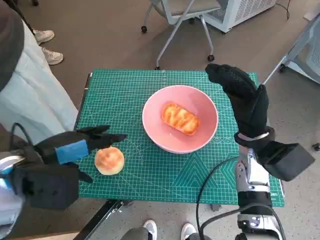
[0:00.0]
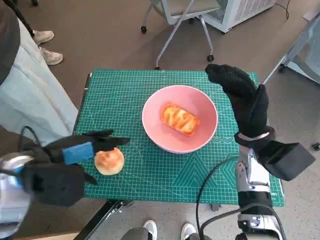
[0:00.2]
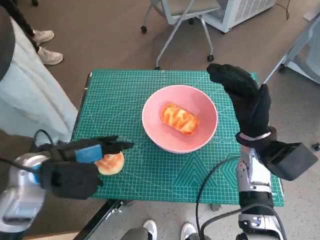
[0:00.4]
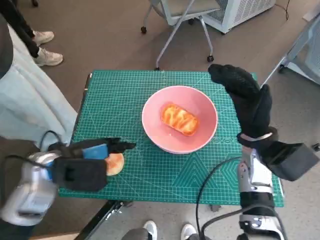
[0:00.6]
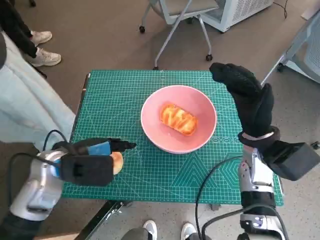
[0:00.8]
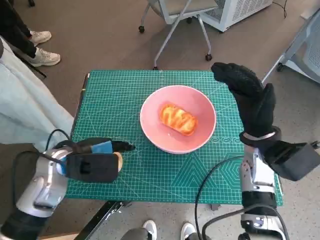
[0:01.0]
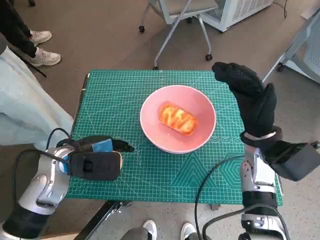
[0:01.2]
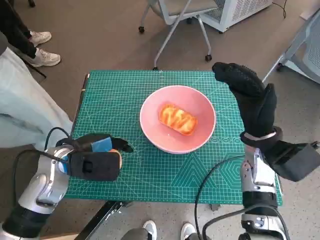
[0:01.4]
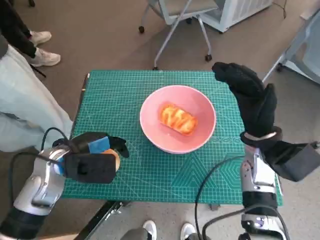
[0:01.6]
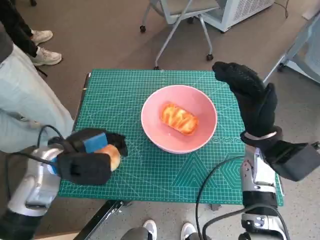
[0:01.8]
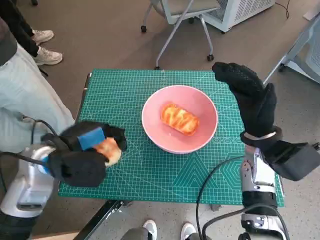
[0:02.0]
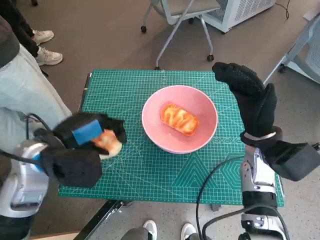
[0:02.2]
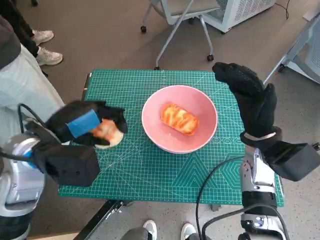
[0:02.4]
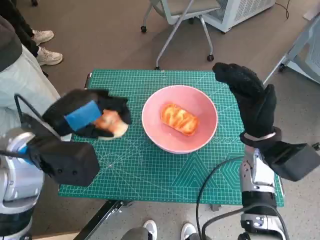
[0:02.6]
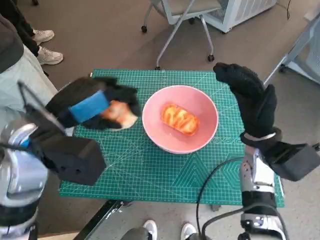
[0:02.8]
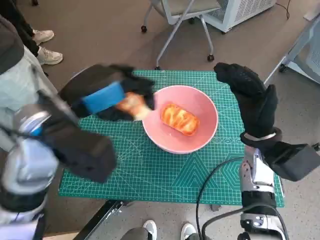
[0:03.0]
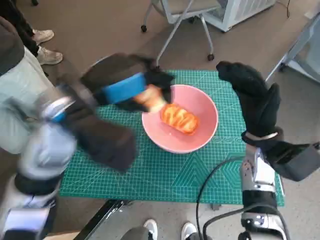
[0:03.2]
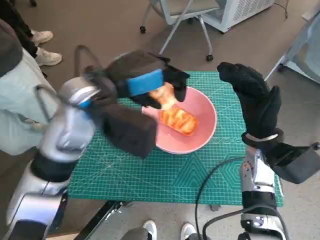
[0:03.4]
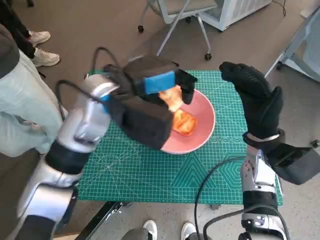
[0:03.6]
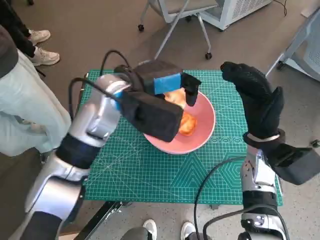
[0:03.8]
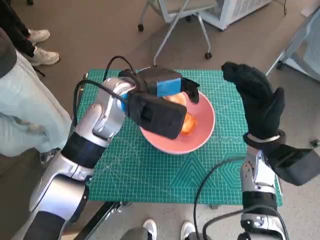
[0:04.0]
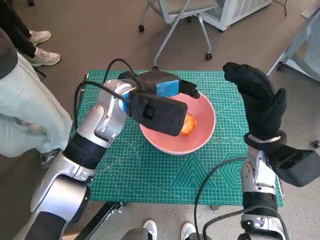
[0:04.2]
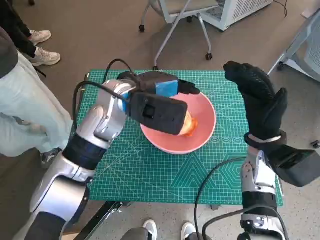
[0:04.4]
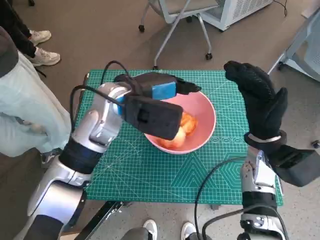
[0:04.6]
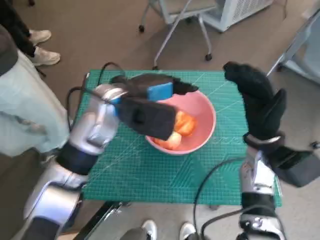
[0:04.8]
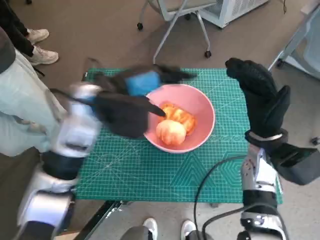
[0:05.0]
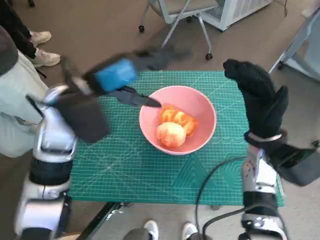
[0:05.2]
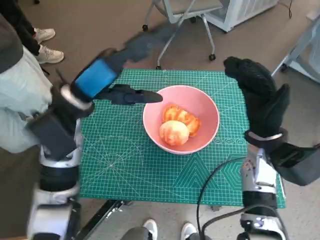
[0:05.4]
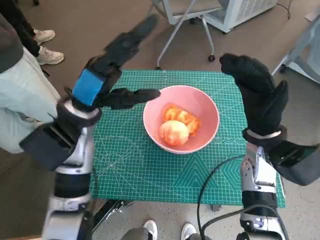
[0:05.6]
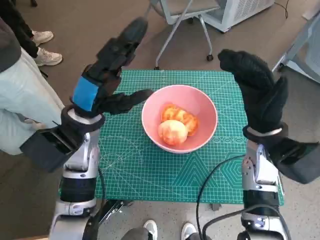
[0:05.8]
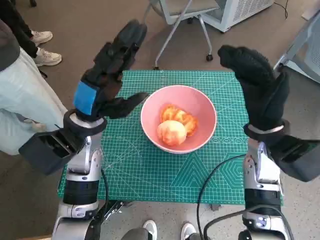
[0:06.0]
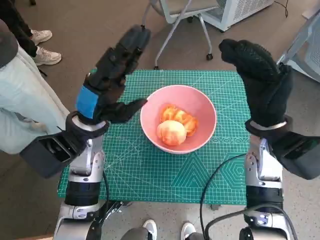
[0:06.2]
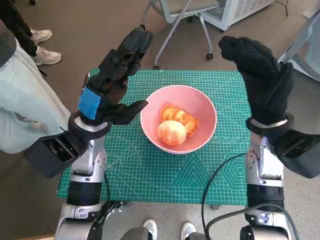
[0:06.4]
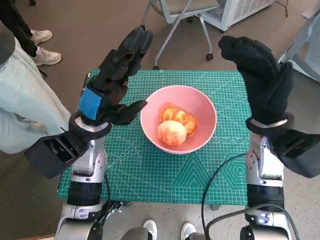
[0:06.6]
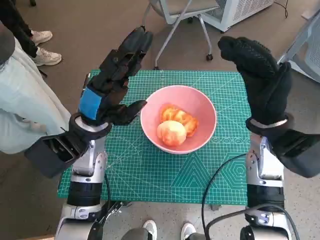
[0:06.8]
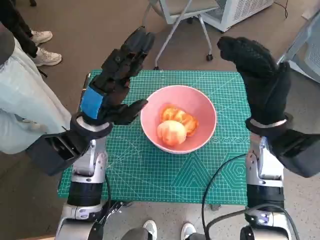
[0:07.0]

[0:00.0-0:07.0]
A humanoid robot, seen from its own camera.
Task of the whole recording: Push the bowl into the center of the table and put the bread into the bowl.
Step, 0:01.6 to 0:04.6: Place the round bread in pink bowl with left hand.
0:00.0 to 0:01.4: The left hand moves downward, roughly 10 cm.
0:01.4 to 0:02.8: The left hand goes roughly 10 cm upward.
0:02.8 to 0:04.2: The left hand moves to the right and forward, roughly 15 cm.
0:04.2 to 0:05.6: The left hand travels to the left by approximately 10 cm.

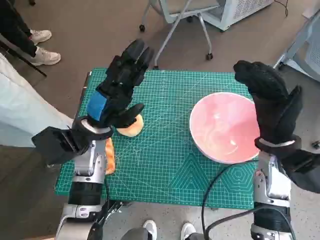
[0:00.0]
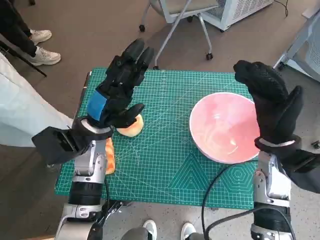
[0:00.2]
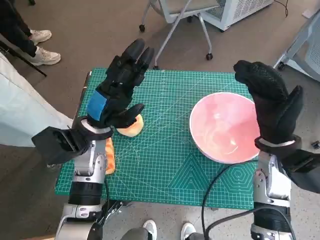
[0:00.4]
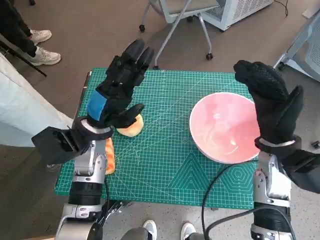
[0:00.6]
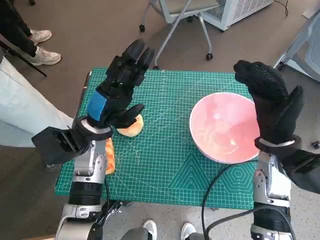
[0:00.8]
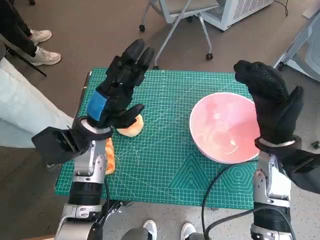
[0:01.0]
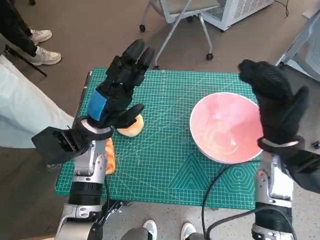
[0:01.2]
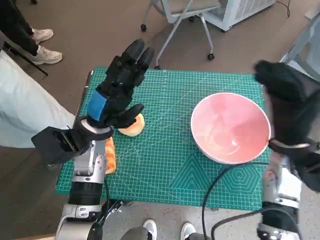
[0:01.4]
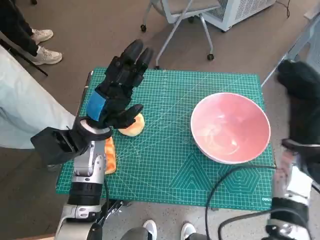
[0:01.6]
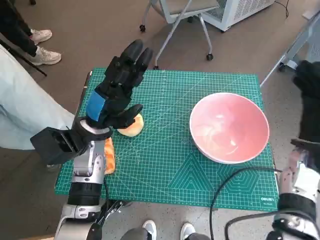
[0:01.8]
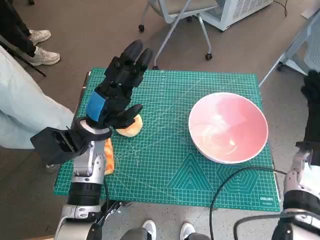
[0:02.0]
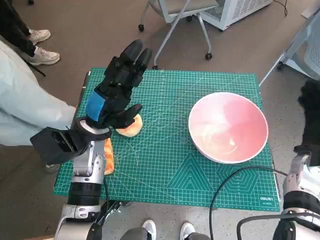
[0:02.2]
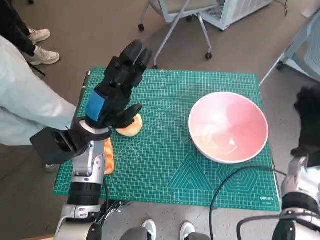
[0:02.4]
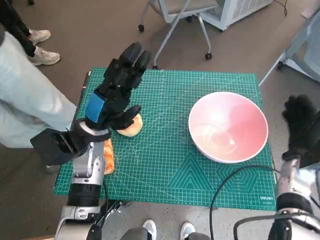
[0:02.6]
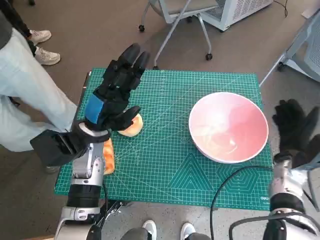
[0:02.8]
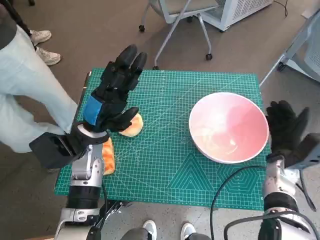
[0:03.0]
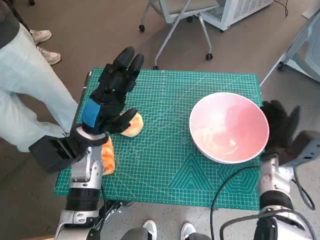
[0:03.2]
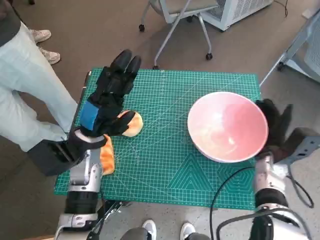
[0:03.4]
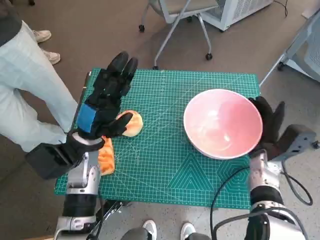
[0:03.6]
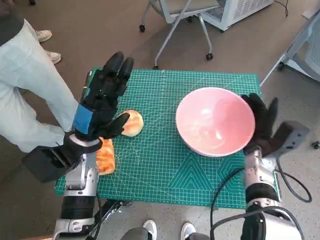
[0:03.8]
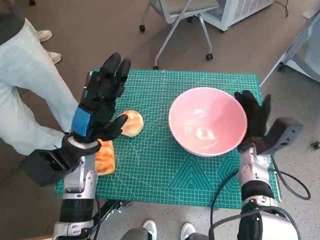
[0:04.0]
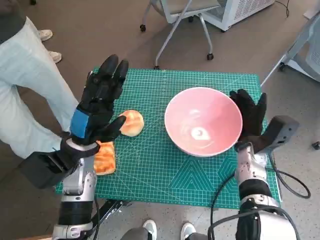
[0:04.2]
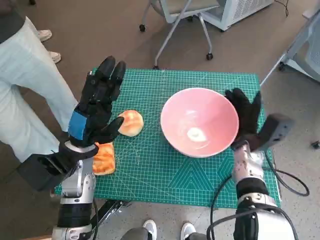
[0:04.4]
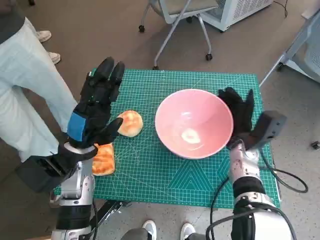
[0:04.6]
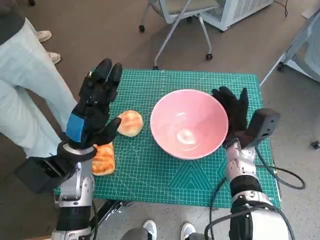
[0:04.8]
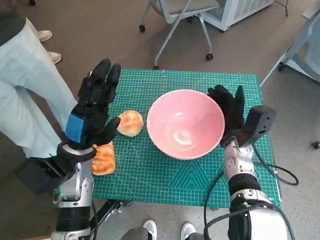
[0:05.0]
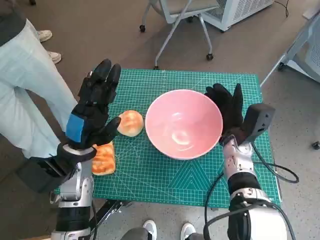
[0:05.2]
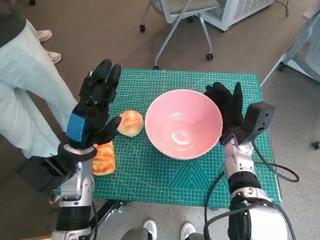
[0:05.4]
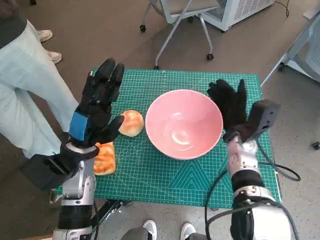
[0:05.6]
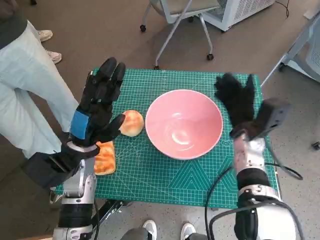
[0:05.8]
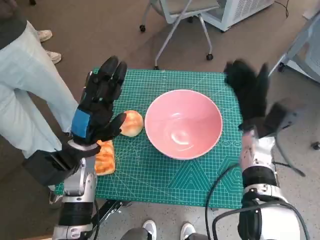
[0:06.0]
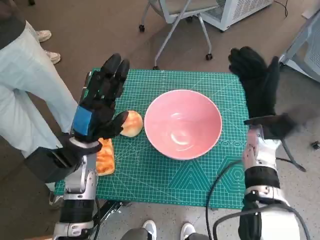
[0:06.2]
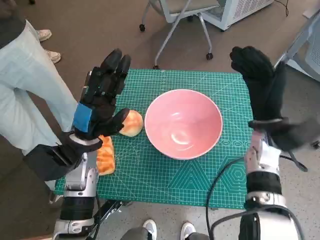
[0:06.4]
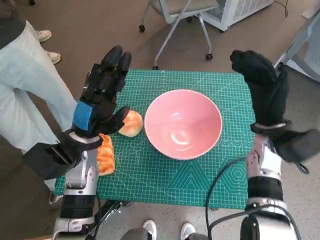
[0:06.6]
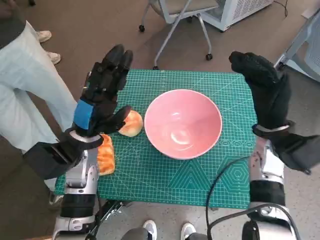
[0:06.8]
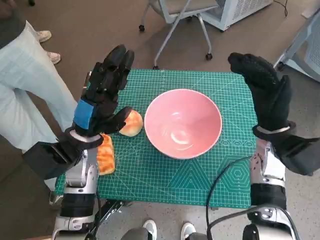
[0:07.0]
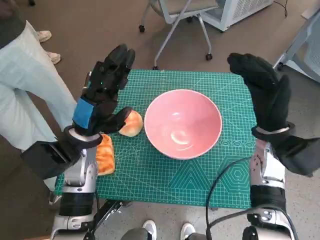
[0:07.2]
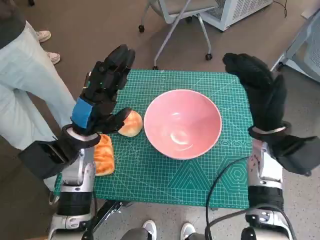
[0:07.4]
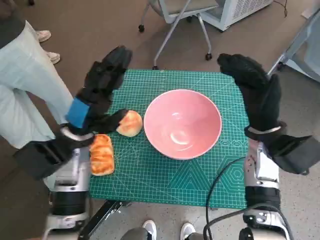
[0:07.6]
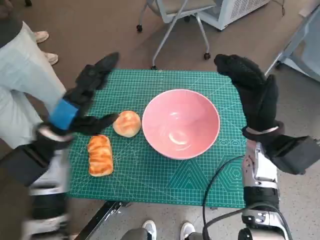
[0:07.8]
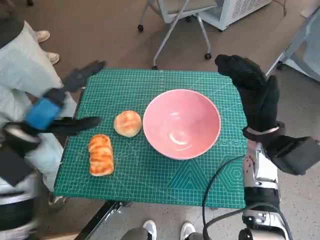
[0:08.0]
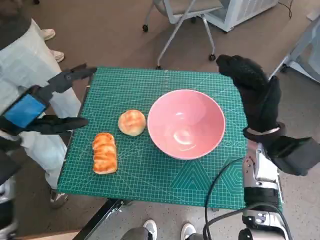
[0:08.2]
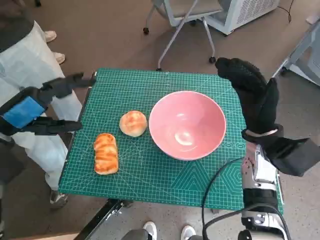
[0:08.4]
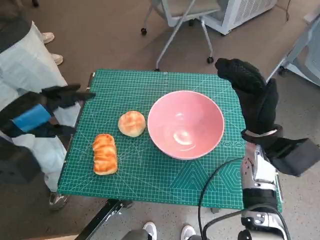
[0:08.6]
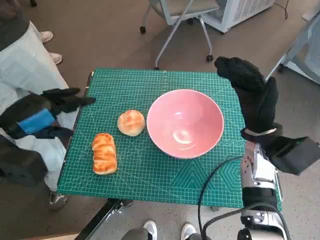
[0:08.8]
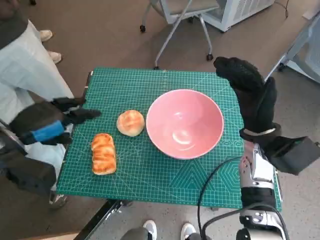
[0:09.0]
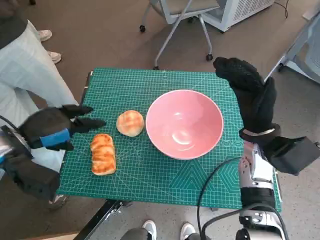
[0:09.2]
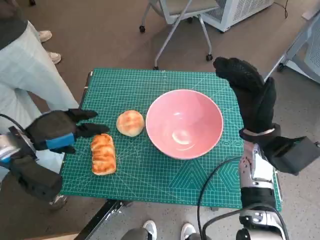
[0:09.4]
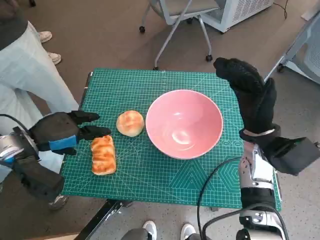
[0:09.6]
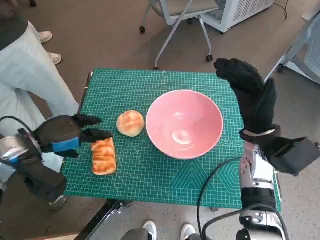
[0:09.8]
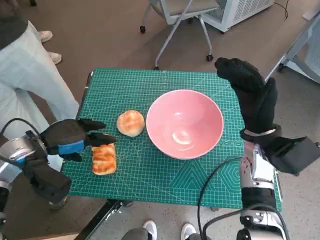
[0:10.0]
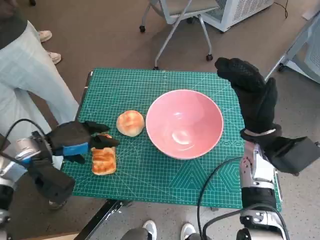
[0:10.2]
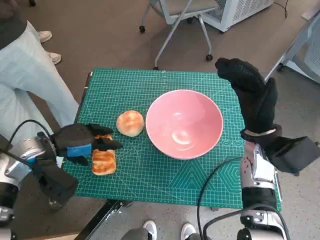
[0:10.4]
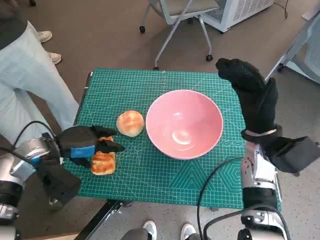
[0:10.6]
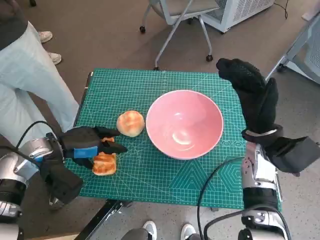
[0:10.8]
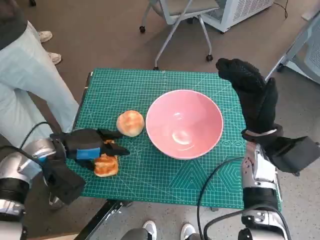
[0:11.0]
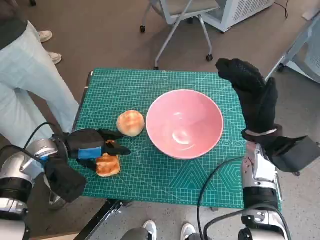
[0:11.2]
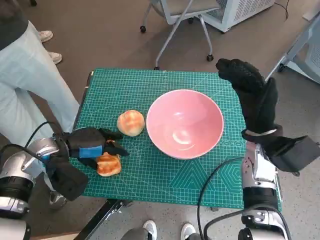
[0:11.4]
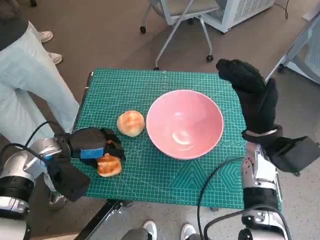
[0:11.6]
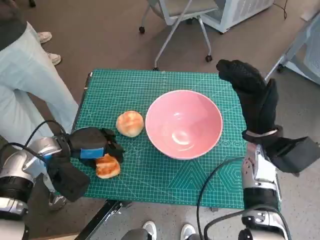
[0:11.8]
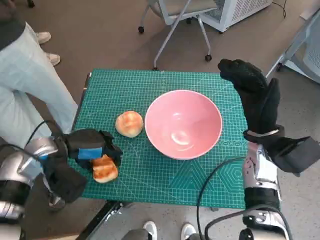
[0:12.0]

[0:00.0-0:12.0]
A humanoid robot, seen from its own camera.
Task of the whole recording: Push the bowl into the center of the table and put the bread into the bowl.
Step, 0:00.0 to 0:05.8: Move the pink bowl to the center of table with right hand.
Step, 0:06.0 to 0:11.8: Grasp the long bread with left hand.
0:01.6 to 0:03.0: The right hand shifts approximately 10 cm downward.
0:03.0 to 0:04.4: The right hand heads to the left, covering roughly 10 cm.
0:04.4 to 0:06.0: The right hand ends up some 5 cm from where it was.
0:06.0 to 0:07.6: The right hand changes place by about 5 cm.
0:07.6 to 0:09.0: The left hand heads to the left, covering some 10 cm.
0:09.0 to 0:10.4: The left hand shifts about 5 cm downward.
0:10.4 to 0:12.0: There are only small adjustments of the hands.

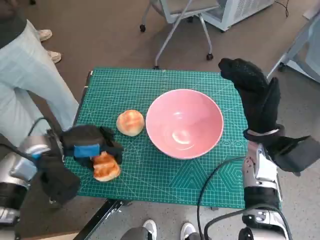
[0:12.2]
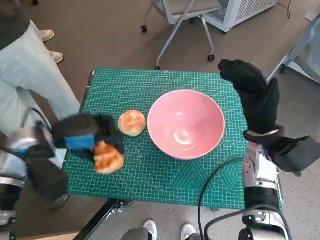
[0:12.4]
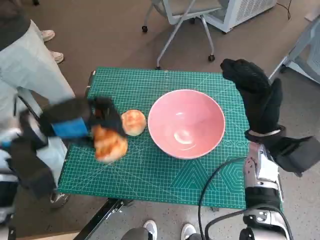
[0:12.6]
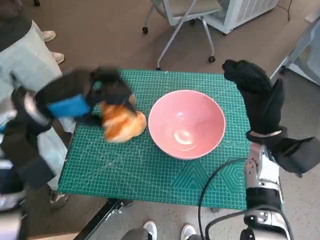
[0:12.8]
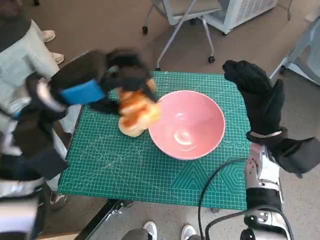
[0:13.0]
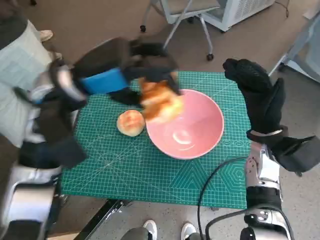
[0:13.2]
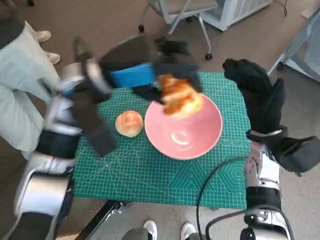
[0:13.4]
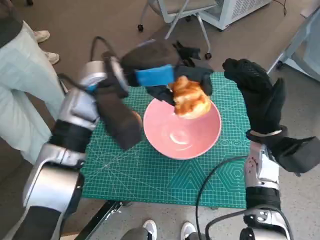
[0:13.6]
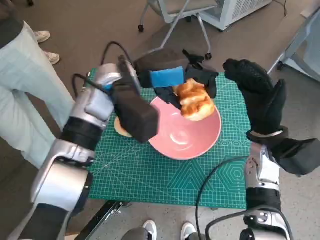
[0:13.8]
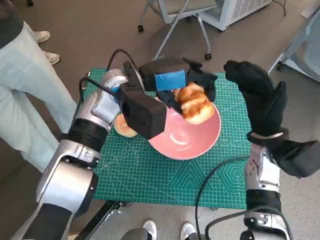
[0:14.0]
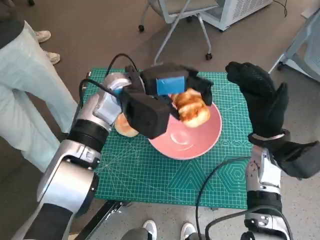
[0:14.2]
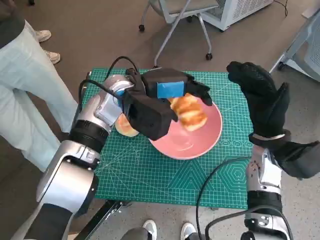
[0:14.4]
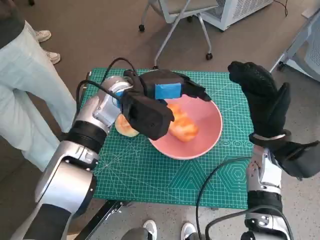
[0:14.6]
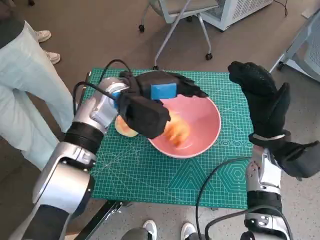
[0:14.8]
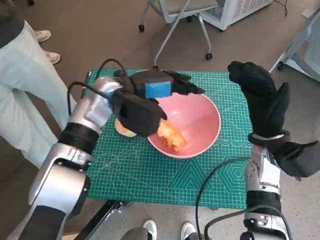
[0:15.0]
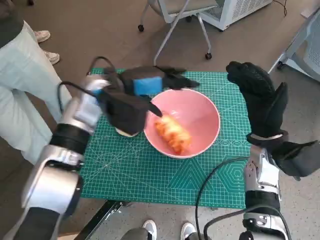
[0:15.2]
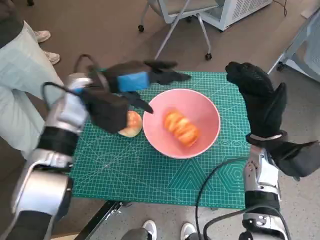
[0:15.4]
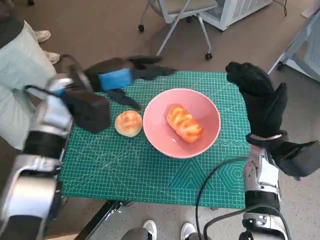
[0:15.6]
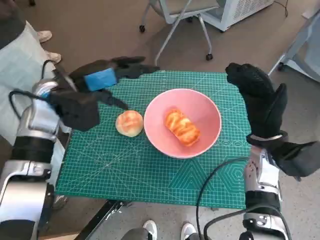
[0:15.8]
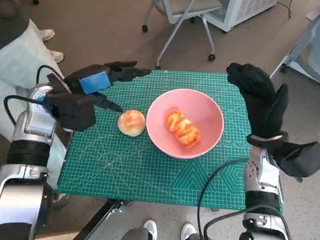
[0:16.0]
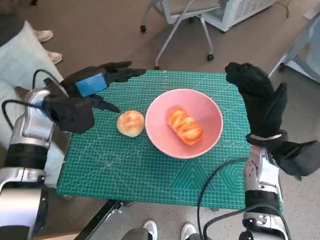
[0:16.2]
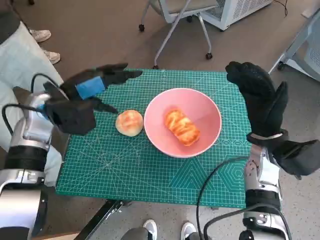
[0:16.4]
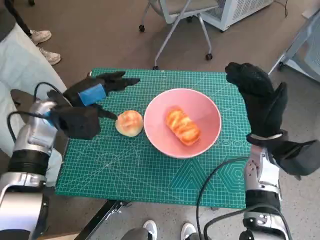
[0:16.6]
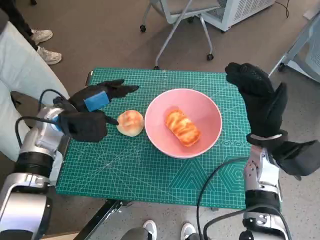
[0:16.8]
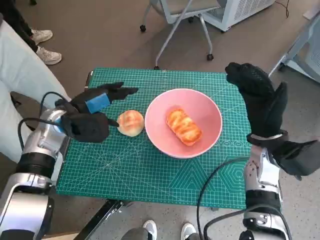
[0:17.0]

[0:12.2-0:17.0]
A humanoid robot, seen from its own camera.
Task of the whole recording: Push the bowl into the center of the table and put the bread into the bowl.
Step, 0:12.2 to 0:15.6: Place the long bread in pink bowl with left hand.
0:12.2 to 0:13.8: The left hand travels to the right, upward and forward by roughly 20 cm.
0:13.8 to 0:15.4: The left hand heads to the left, covering approximately 5 cm.
0:15.4 to 0:17.0: The left hand goes roughly 10 cm to the left and downward.
